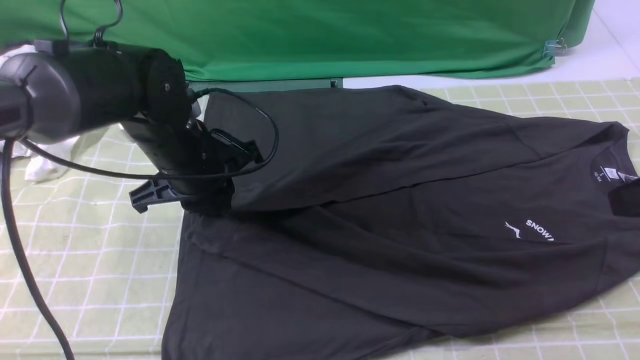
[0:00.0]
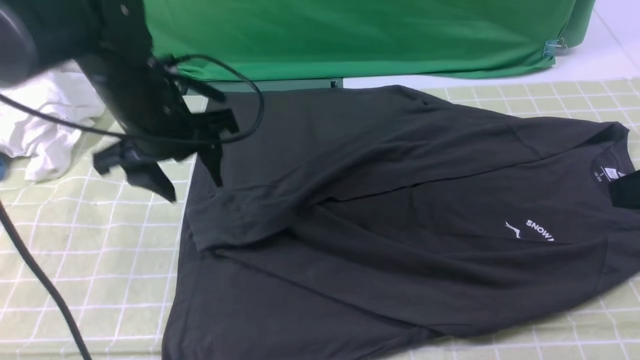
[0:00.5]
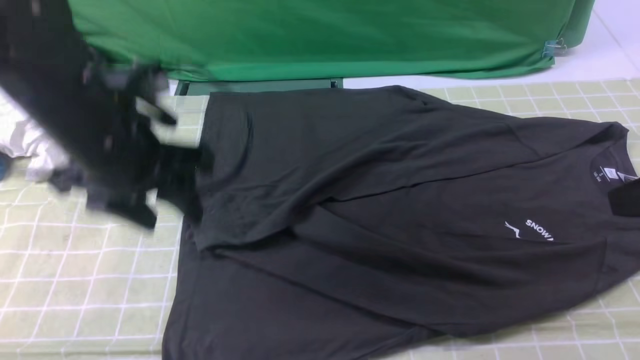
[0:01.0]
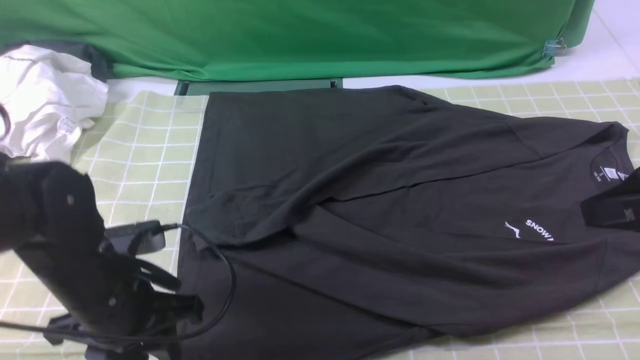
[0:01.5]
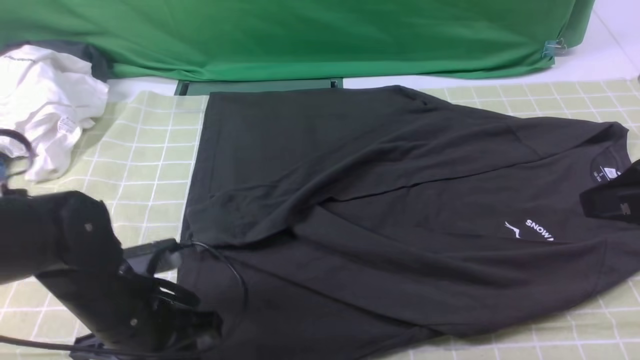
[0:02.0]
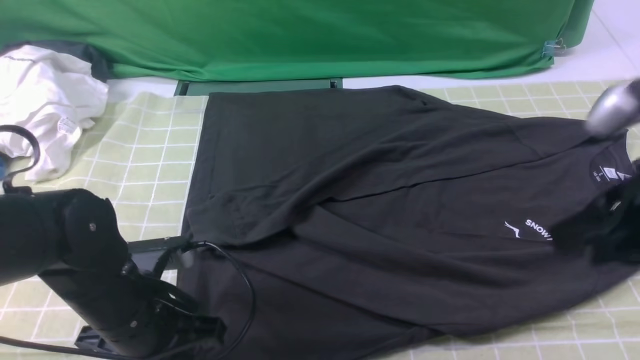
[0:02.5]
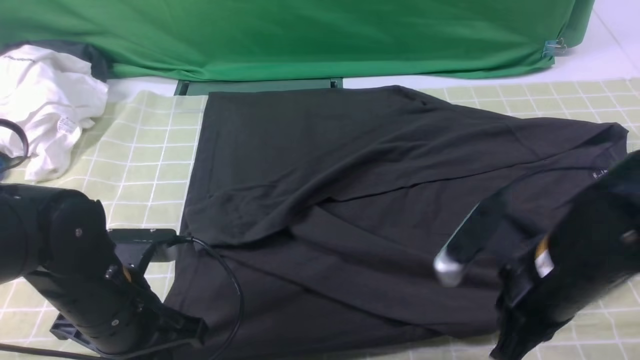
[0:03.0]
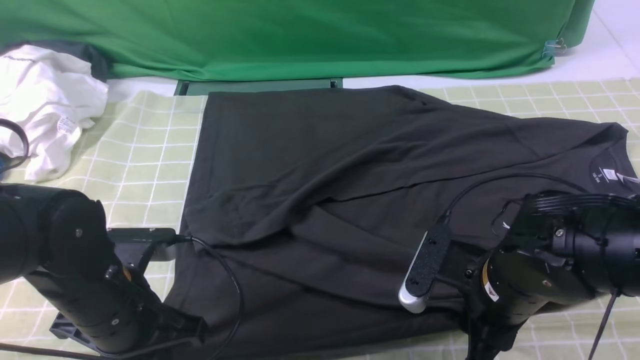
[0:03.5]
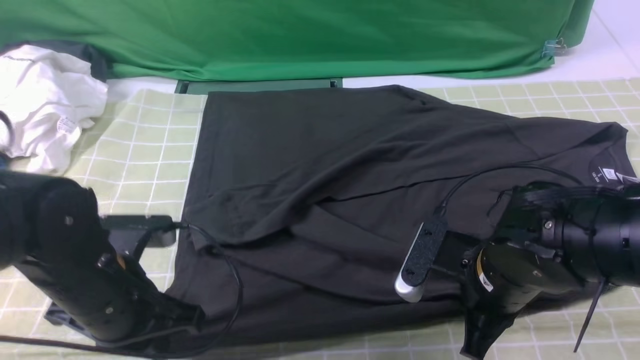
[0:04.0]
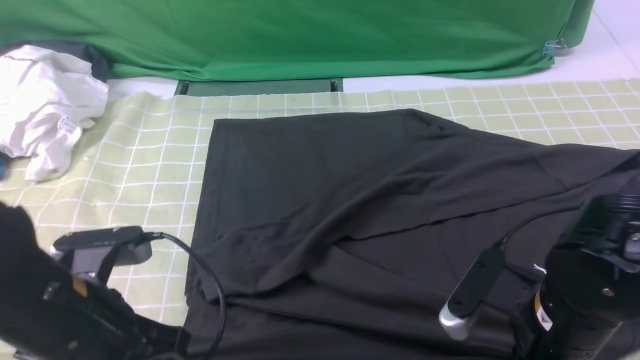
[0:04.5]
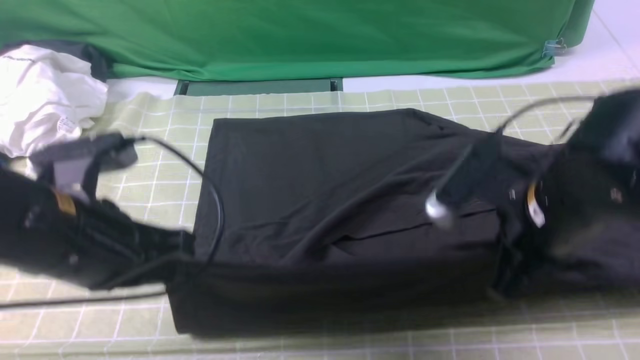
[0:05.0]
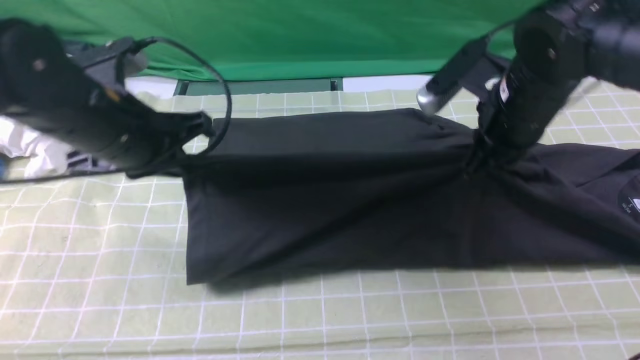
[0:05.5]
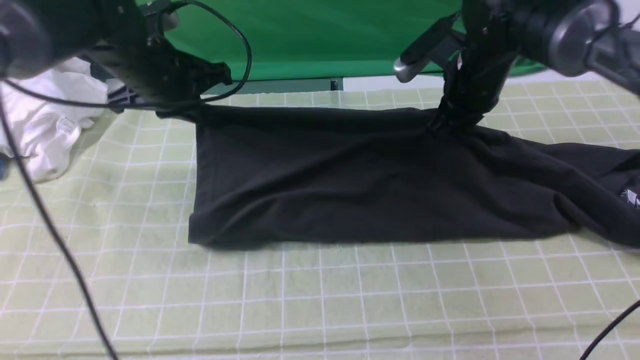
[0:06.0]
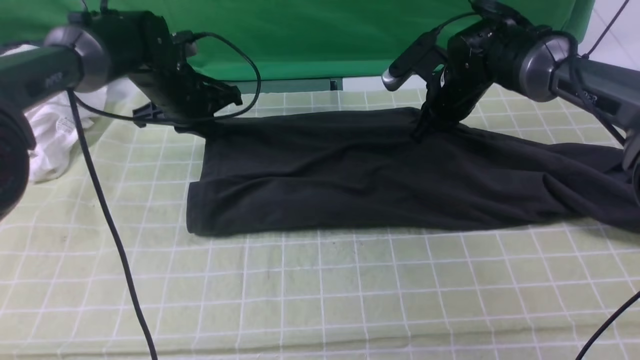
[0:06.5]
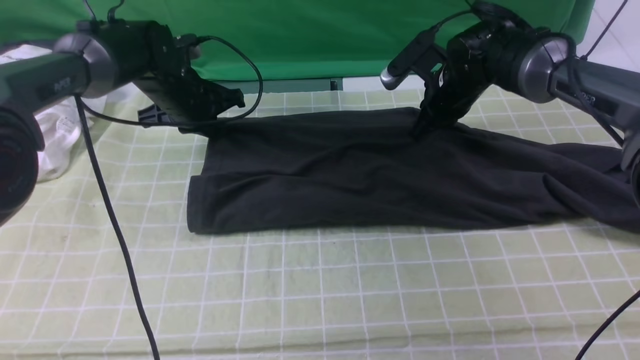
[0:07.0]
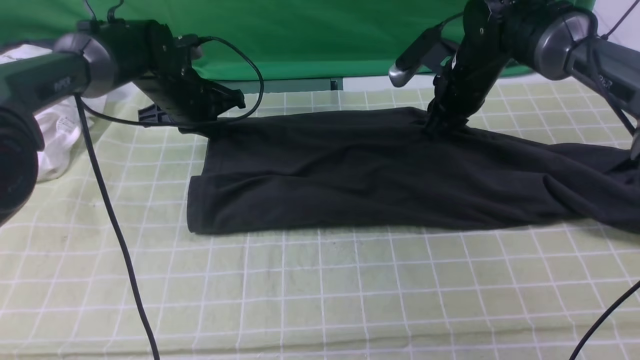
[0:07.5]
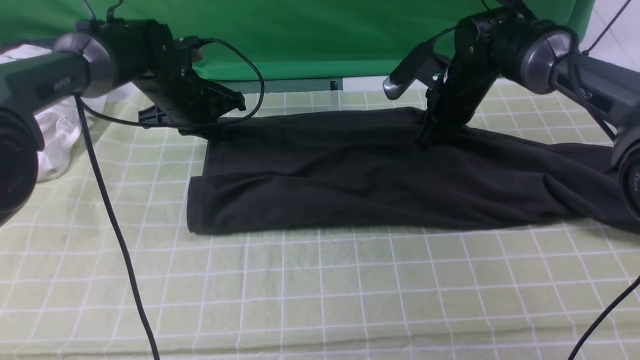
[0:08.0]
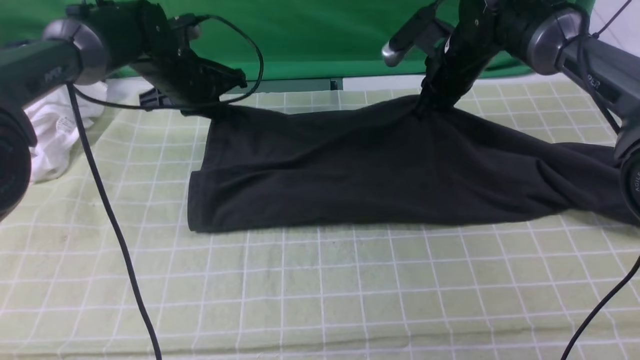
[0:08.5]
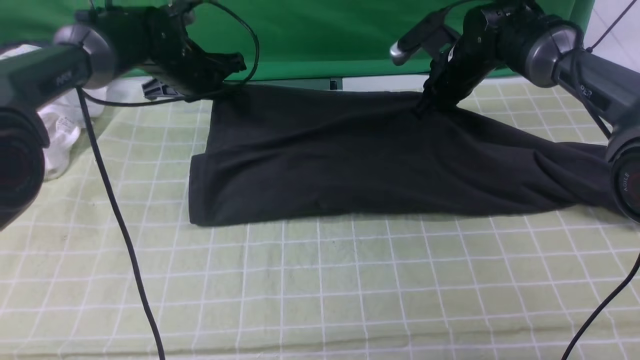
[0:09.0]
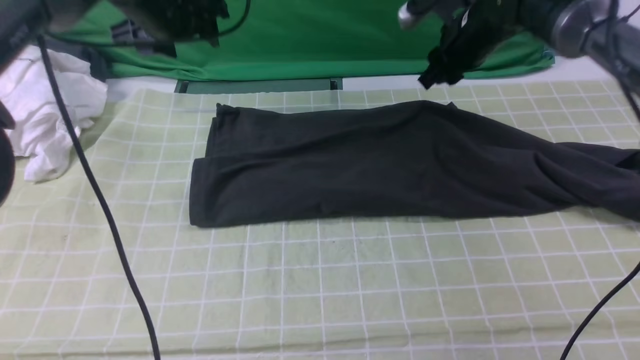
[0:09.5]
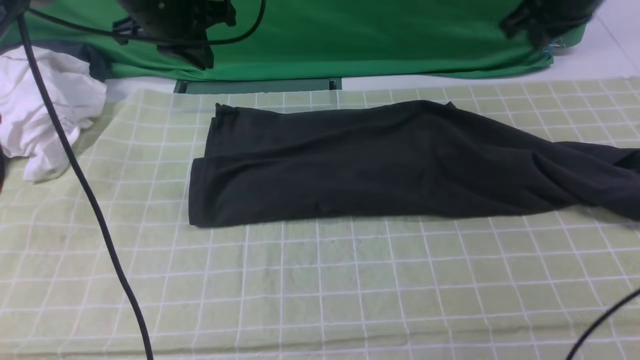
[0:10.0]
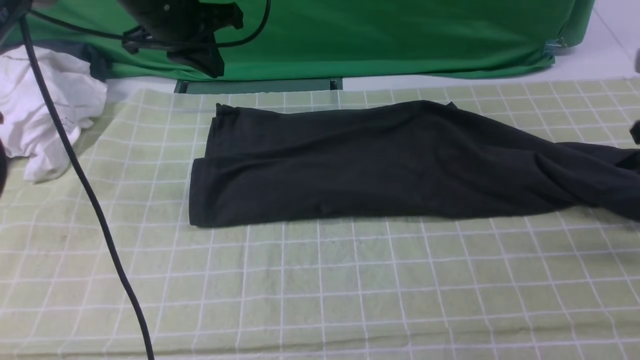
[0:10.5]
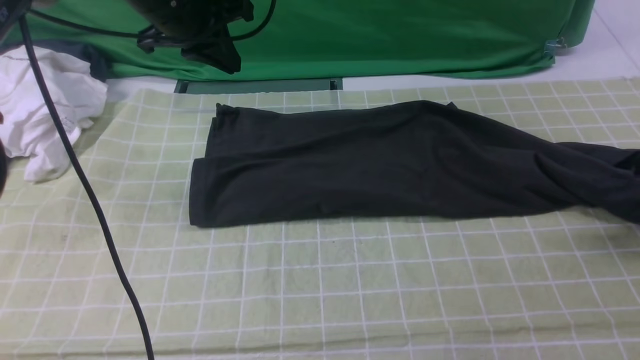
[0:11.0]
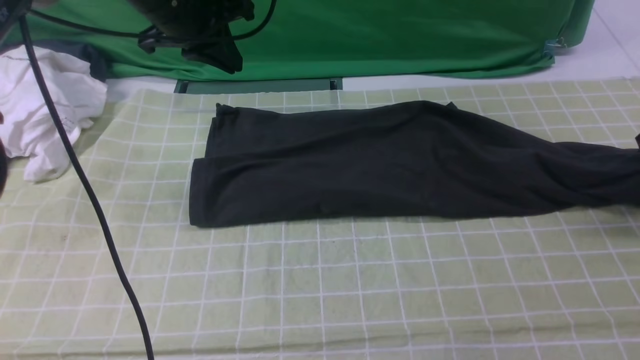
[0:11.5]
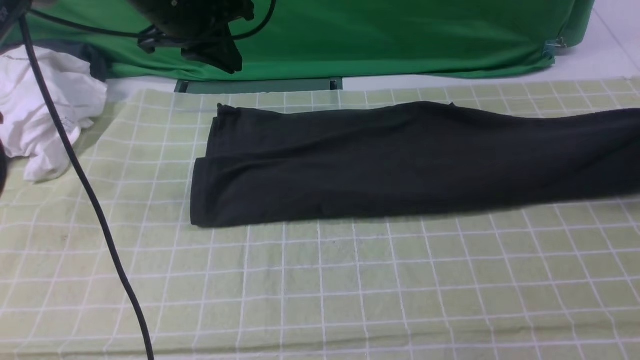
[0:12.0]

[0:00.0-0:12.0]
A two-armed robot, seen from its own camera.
Step, 0:00.5 to 0:03.5: use both arms simultaneously to clamp the lower edge of the clothing fabric.
Step, 0:04.0 to 0:09.0: use both arms to drag the lower edge of the fabric forward and fold it over the upper edge.
0:00.0 to 0:02.0: The left gripper goes some 15 cm backward and downward, and opens, then closes again.
0:02.0 to 0:04.0: The left gripper closes its fingers. The right gripper shifts approximately 20 cm downward and to the left.
0:04.0 to 0:06.0: The two grippers go some 25 cm forward.
0:06.0 to 0:08.0: The right gripper ends up roughly 5 cm from where it was. Meanwhile the left gripper shifts about 10 cm downward and forward.
0:08.0 to 0:10.0: The left gripper moves upward, some 15 cm, and opens, then closes once more. Meanwhile the right gripper travels upward and to the right by approximately 20 cm.
0:10.0 to 0:12.0: The right gripper heads to the right and downward, covering roughly 25 cm.

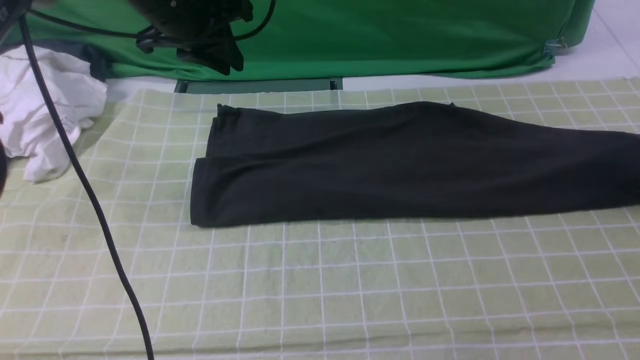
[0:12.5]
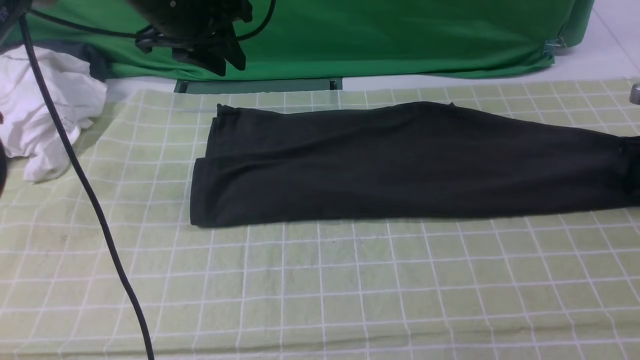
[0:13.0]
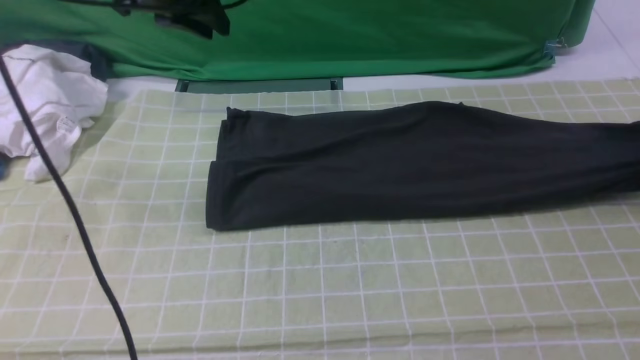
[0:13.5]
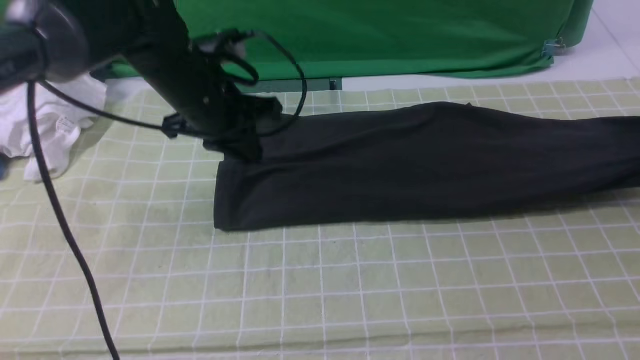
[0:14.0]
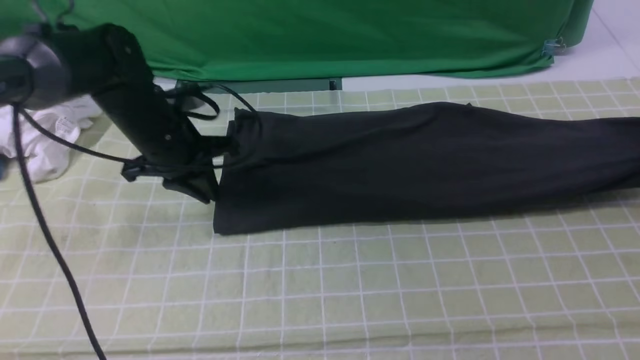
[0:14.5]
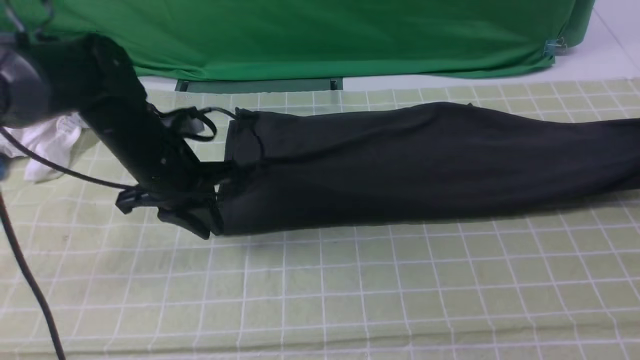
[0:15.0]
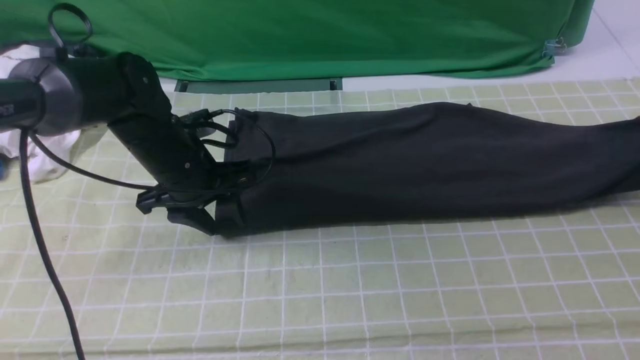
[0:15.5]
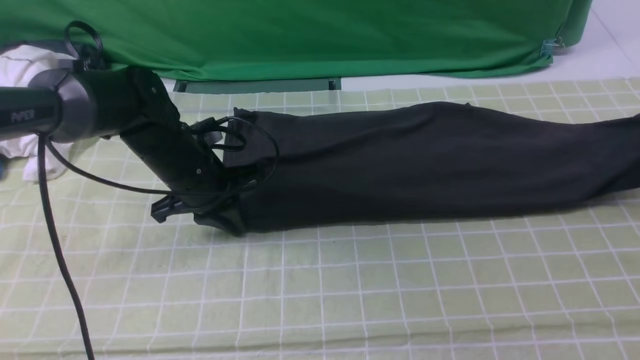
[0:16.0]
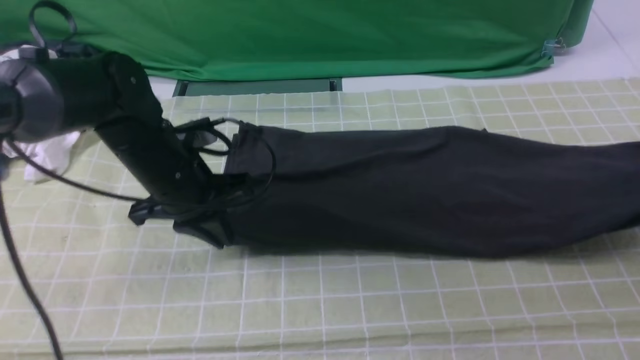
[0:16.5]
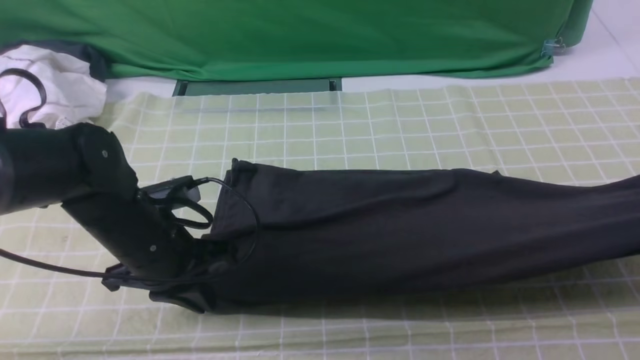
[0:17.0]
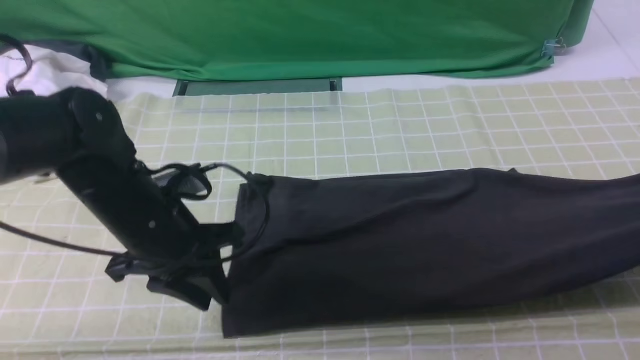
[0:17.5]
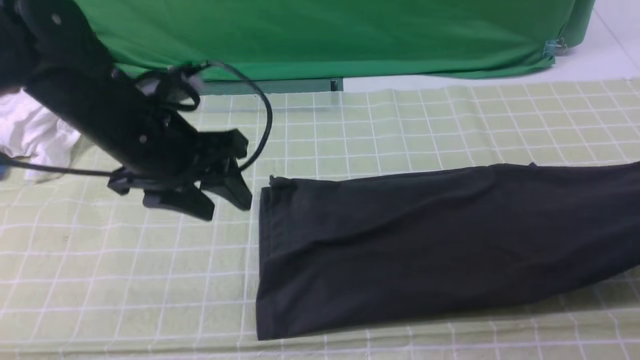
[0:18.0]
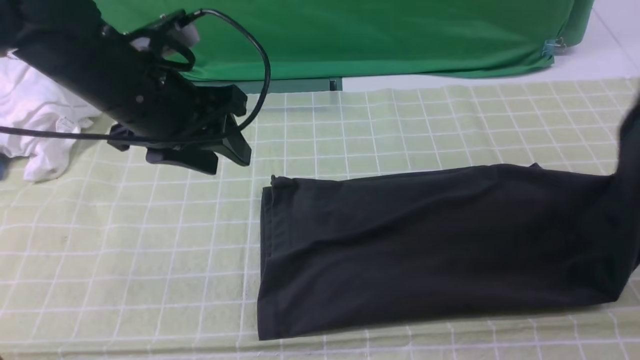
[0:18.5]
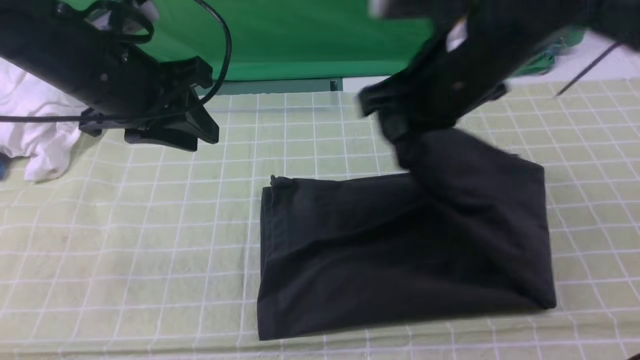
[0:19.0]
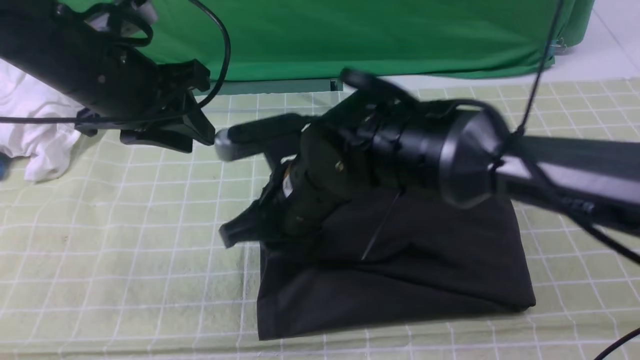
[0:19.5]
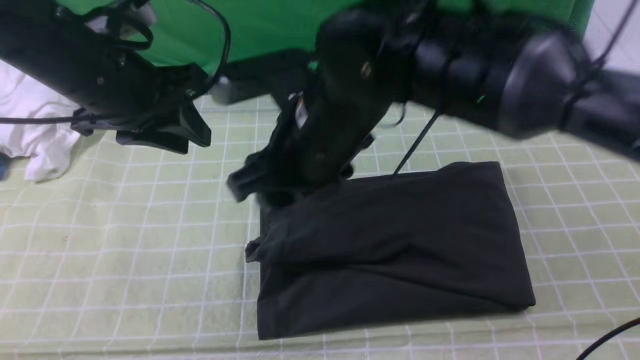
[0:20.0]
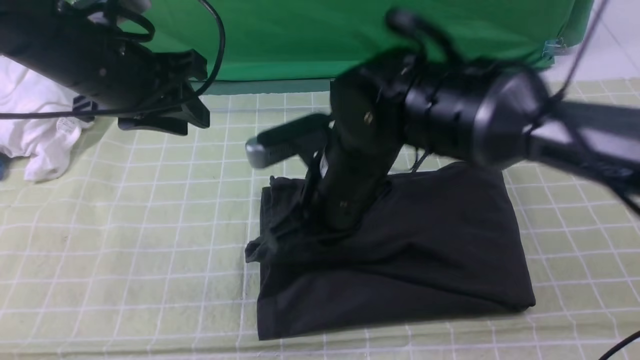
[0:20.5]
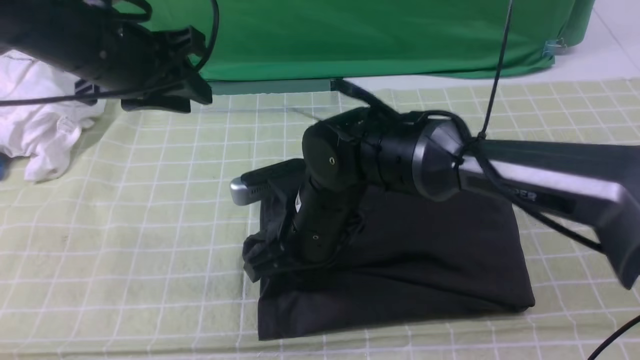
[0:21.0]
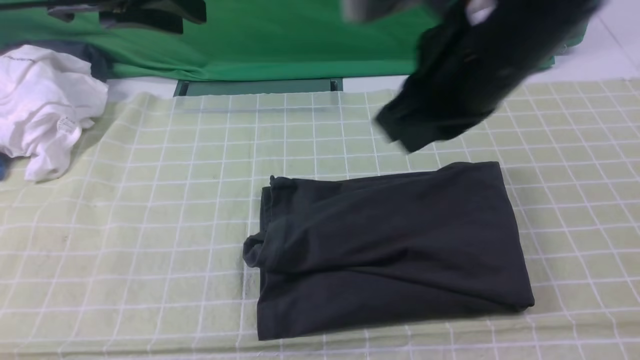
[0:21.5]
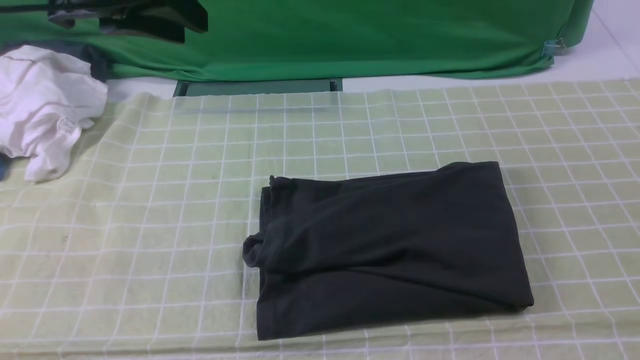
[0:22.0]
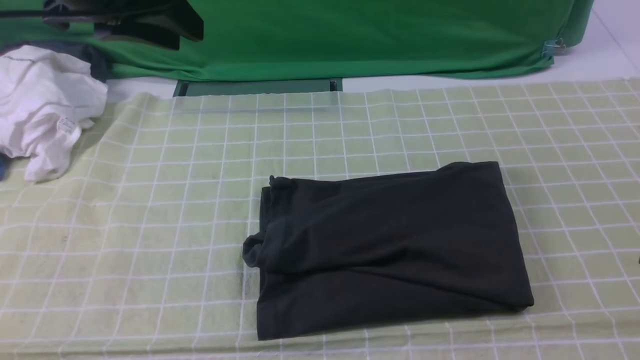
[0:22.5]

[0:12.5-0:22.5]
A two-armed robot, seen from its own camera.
Step, 0:13.5 to 0:19.5: use the right arm to drag the right edge of the fabric to the left and folds it over the left edge.
0:12.5 to 0:14.5: The left gripper moves downward and backward, approximately 15 cm. Meanwhile the right gripper closes.
0:14.5 to 0:16.5: Both grippers move backward, roughly 5 cm. The left gripper opens, then closes again.
0:16.5 to 0:18.5: The right gripper travels to the left and upward by about 15 cm. Meanwhile the left gripper moves upward, about 15 cm, and opens.
0:18.5 to 0:20.5: The right gripper goes roughly 35 cm to the left, and opens, then closes once more.
0:20.5 to 0:22.5: The left gripper moves upward, about 10 cm. Meanwhile the right gripper goes about 35 cm to the right and backward.
